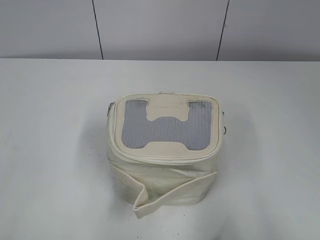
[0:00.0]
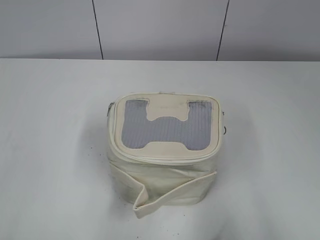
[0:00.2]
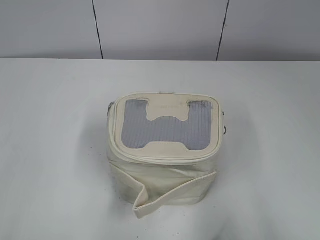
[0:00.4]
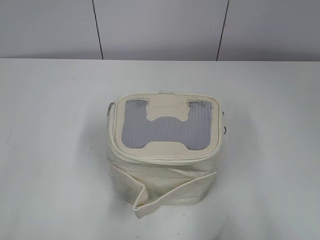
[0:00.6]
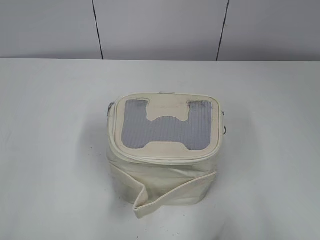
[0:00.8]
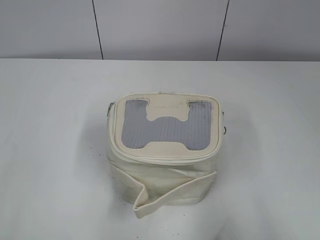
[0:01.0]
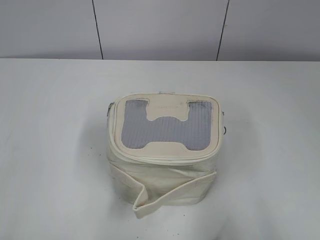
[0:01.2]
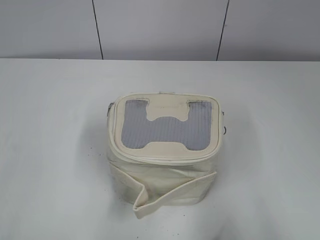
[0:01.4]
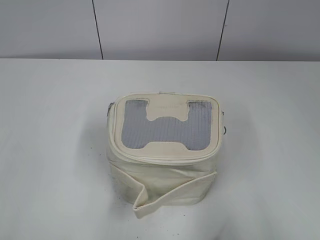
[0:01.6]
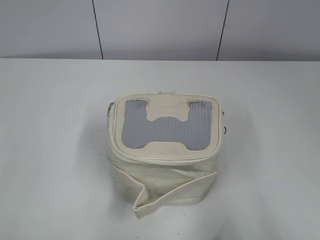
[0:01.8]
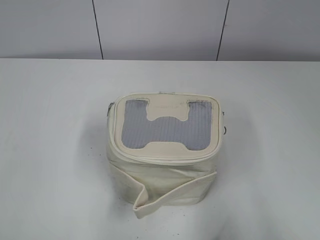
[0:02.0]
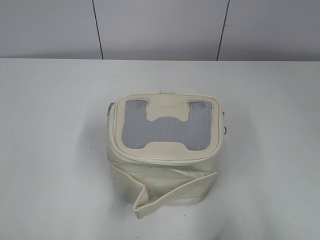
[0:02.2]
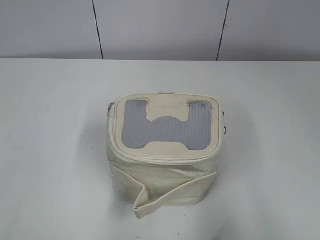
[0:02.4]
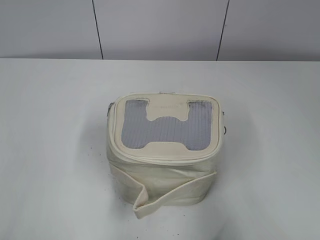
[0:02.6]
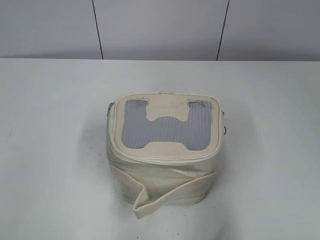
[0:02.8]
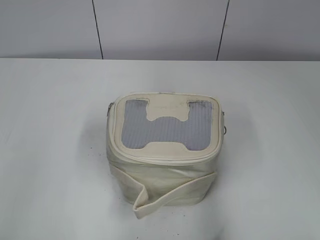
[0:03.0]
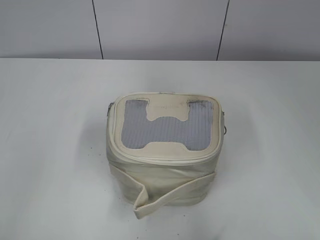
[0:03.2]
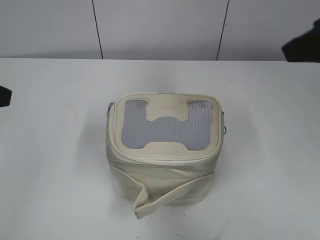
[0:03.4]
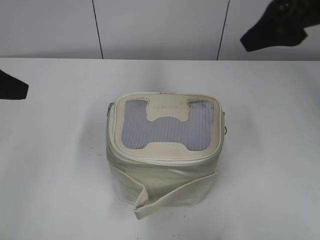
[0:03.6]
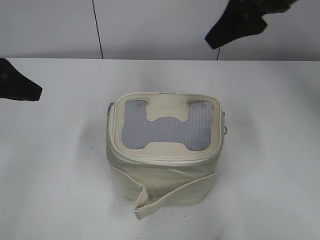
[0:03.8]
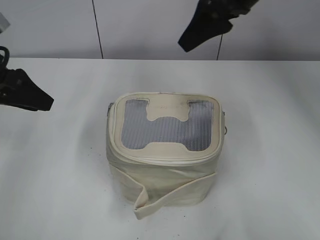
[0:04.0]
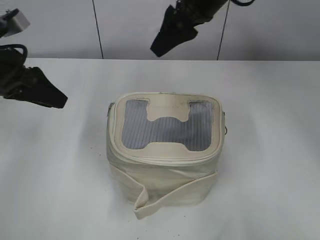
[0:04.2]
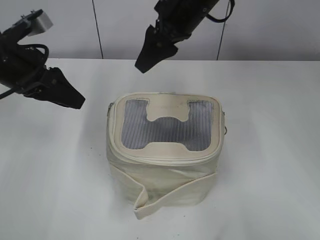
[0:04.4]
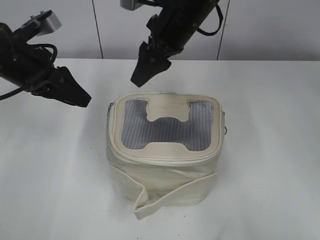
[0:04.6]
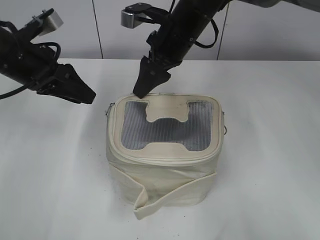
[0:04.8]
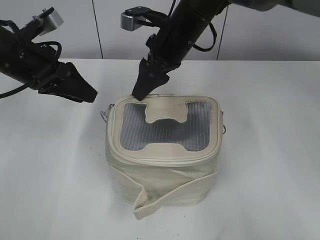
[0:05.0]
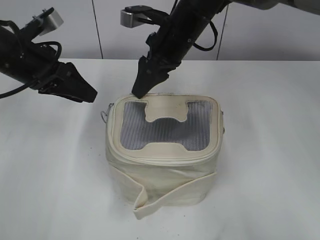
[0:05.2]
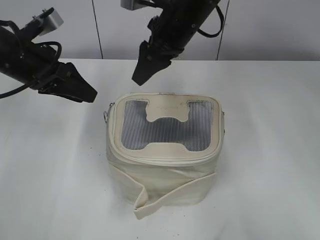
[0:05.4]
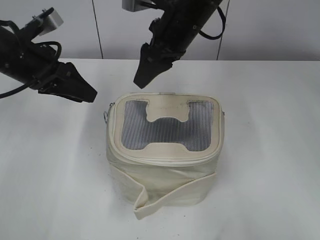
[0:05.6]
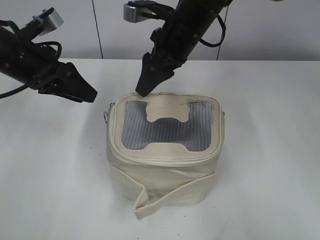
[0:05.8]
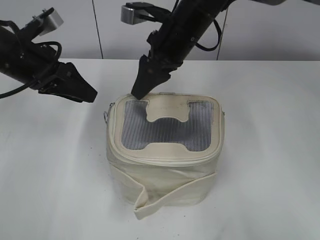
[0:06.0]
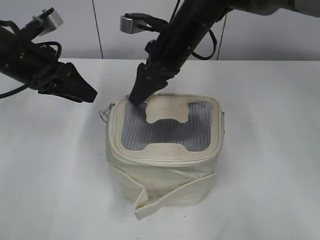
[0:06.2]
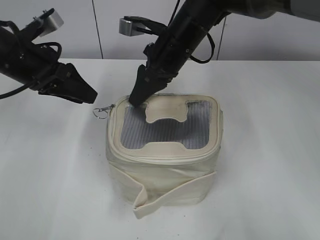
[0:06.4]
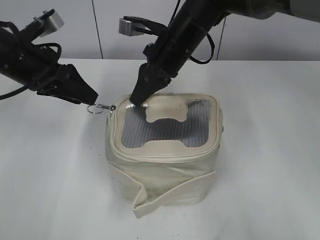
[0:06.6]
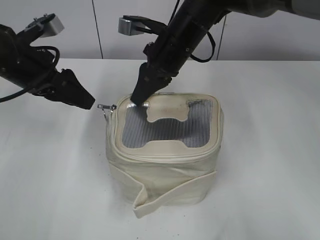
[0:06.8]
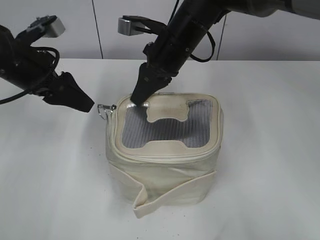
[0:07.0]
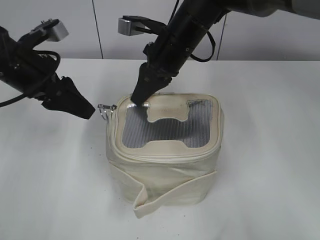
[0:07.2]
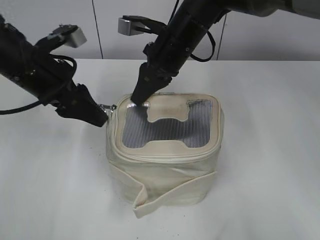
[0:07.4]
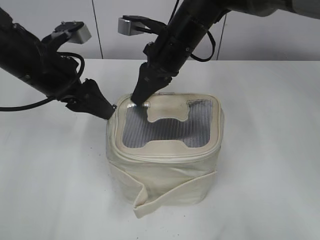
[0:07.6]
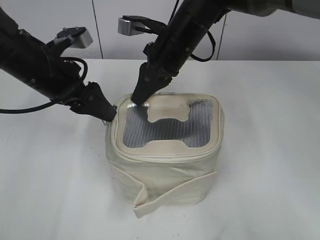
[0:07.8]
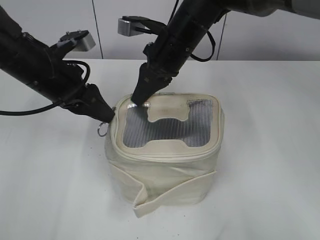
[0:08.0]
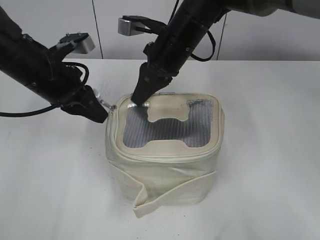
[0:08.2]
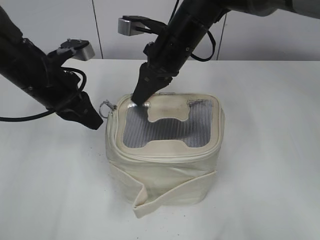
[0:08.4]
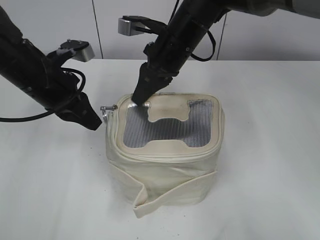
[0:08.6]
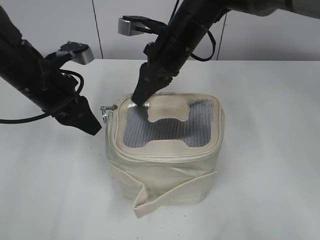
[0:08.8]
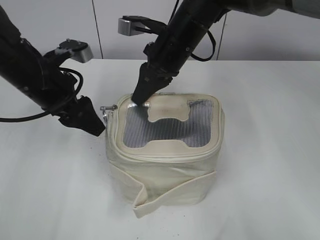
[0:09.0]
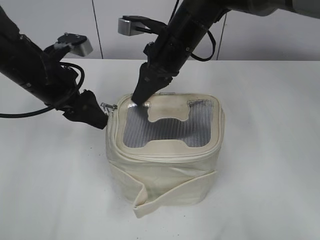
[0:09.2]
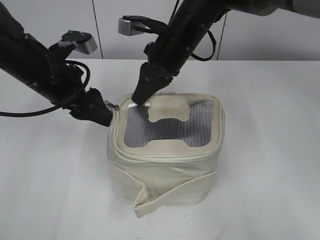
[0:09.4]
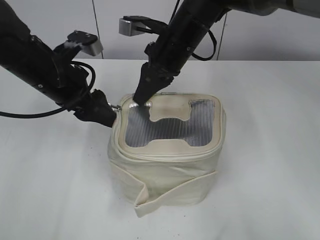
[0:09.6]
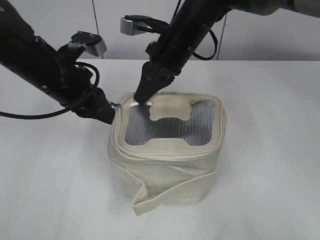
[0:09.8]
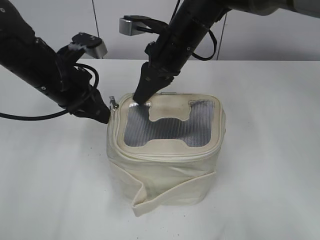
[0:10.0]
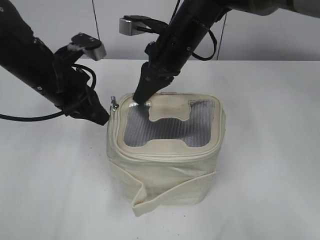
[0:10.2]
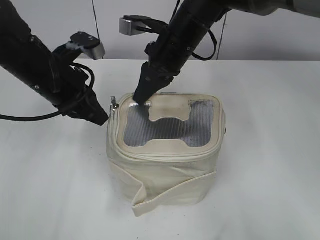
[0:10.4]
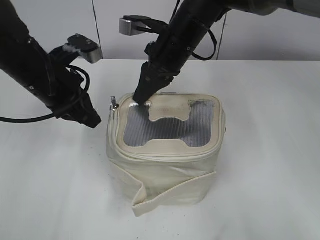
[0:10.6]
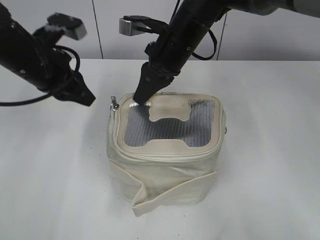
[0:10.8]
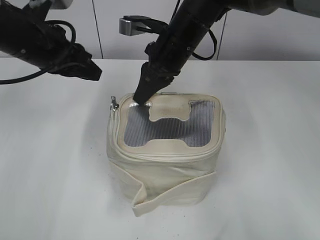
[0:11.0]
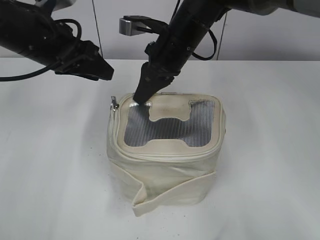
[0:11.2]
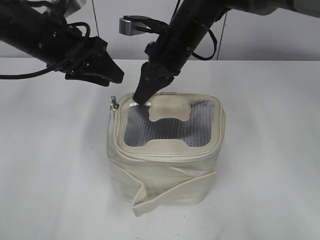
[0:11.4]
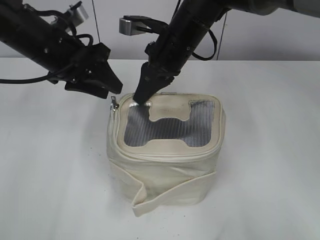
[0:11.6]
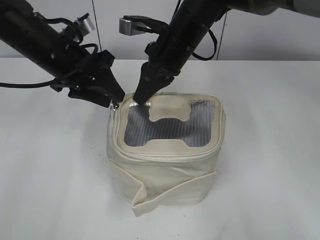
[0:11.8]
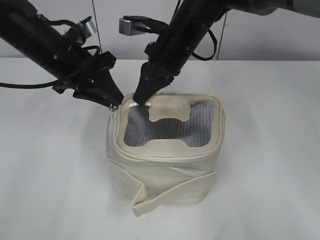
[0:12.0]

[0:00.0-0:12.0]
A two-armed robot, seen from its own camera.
0:01.6 to 0:03.0: The right gripper shifts roughly 10 cm forward and upward. Meanwhile the left gripper is displaced forward by some 10 cm.
0:03.0 to 0:04.4: The left gripper goes roughly 20 cm forward. Meanwhile the right gripper goes roughly 35 cm forward and to the left.
0:04.4 to 0:06.0: The grippers stay close to where they were, moving slightly.
0:06.0 to 0:07.6: The left gripper opens. The right gripper closes.
0:07.6 to 0:09.0: The left gripper closes, then opens again.
0:09.0 to 0:10.4: The left gripper closes its fingers.

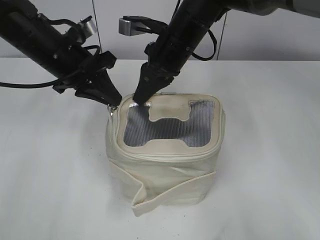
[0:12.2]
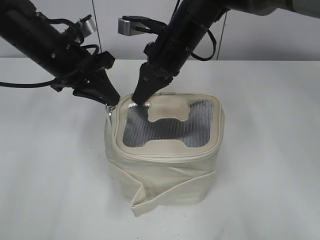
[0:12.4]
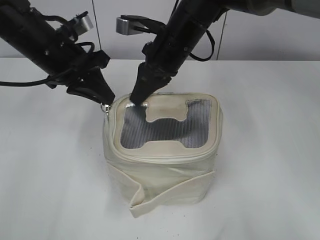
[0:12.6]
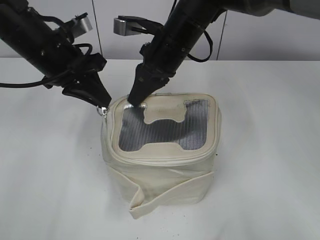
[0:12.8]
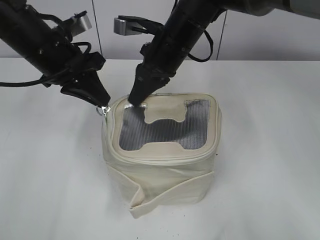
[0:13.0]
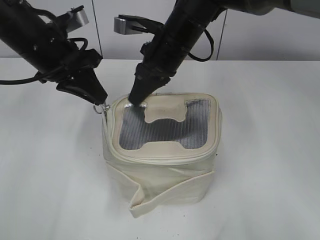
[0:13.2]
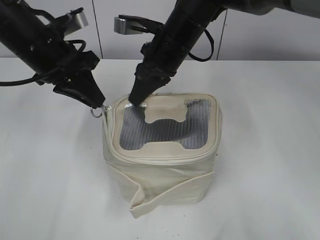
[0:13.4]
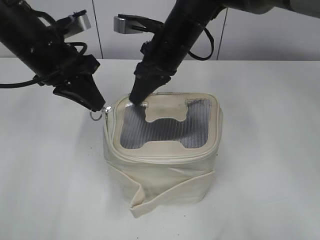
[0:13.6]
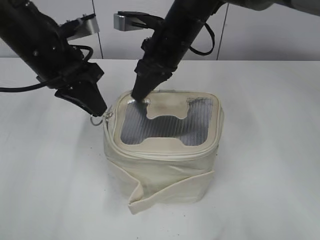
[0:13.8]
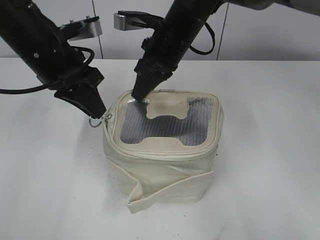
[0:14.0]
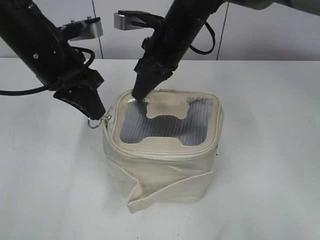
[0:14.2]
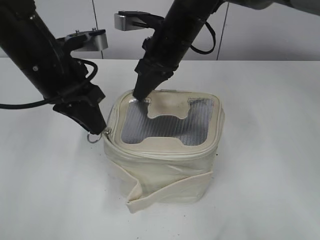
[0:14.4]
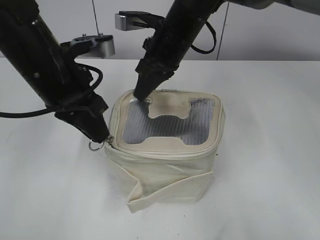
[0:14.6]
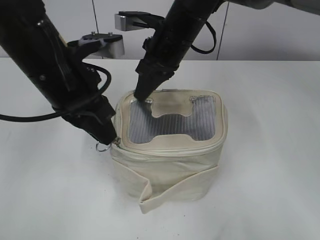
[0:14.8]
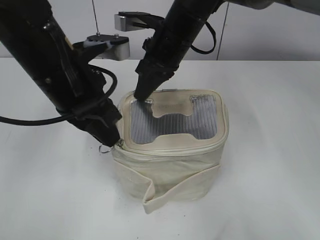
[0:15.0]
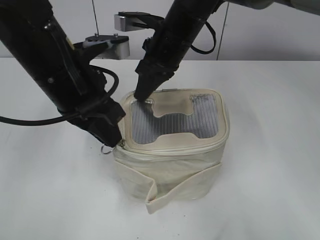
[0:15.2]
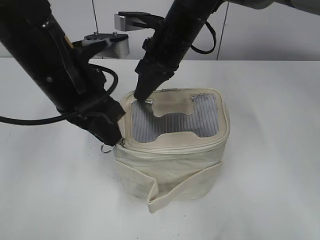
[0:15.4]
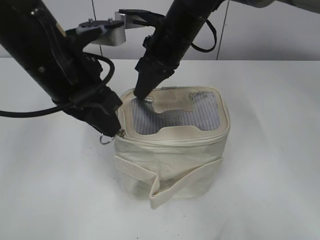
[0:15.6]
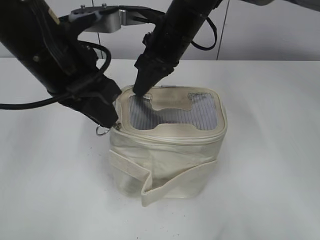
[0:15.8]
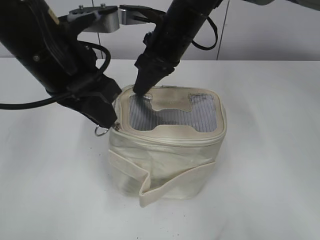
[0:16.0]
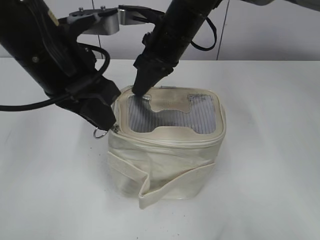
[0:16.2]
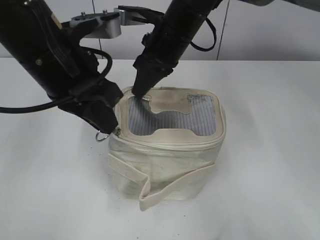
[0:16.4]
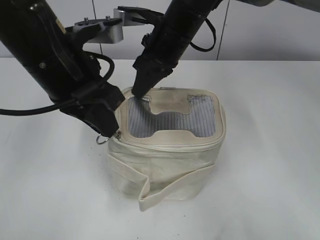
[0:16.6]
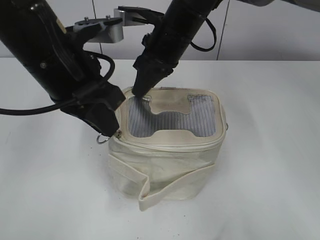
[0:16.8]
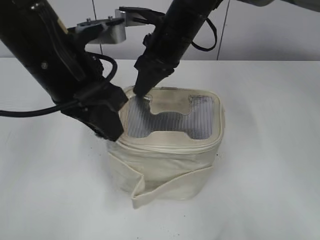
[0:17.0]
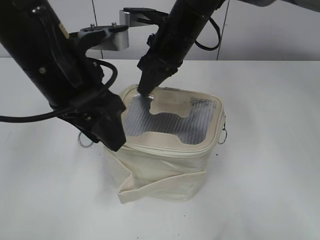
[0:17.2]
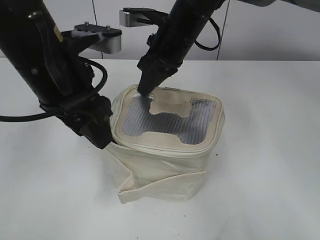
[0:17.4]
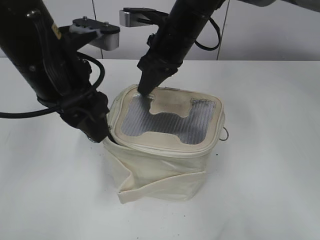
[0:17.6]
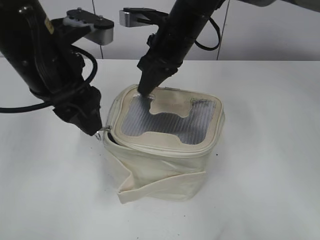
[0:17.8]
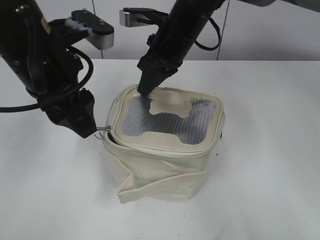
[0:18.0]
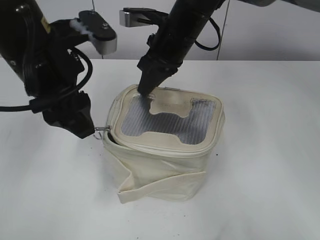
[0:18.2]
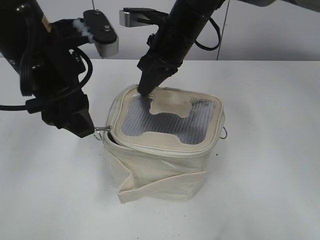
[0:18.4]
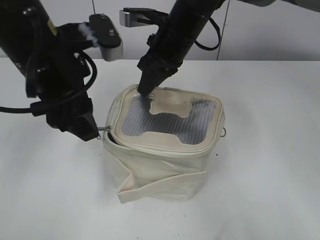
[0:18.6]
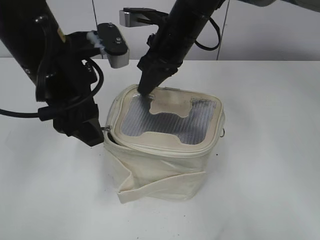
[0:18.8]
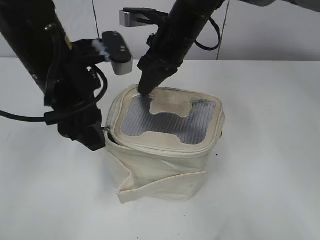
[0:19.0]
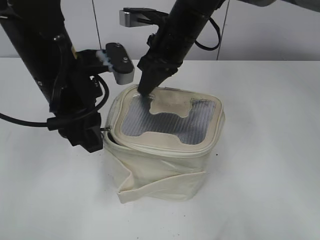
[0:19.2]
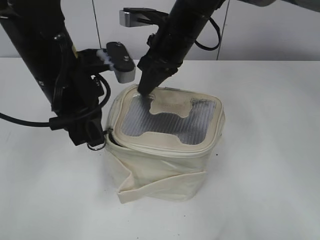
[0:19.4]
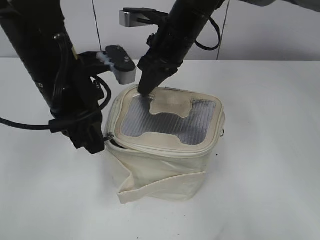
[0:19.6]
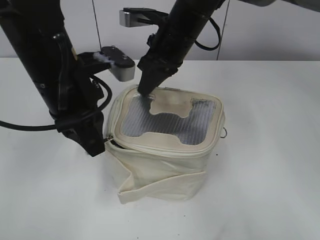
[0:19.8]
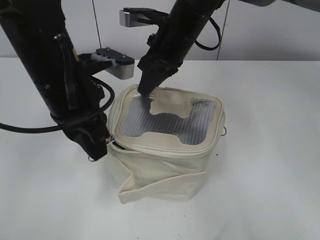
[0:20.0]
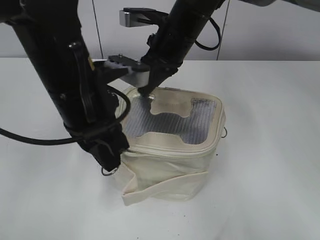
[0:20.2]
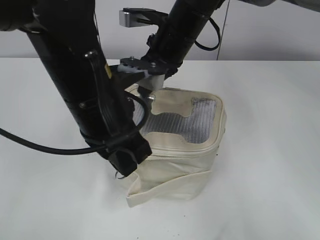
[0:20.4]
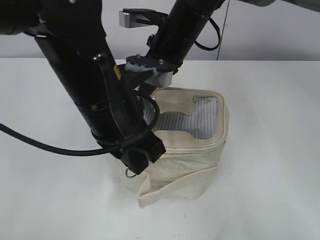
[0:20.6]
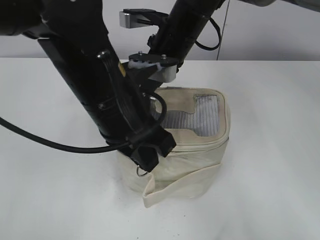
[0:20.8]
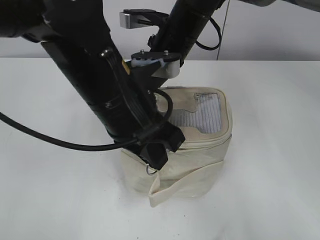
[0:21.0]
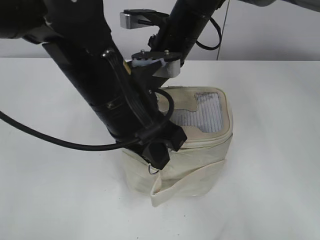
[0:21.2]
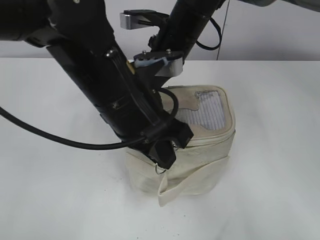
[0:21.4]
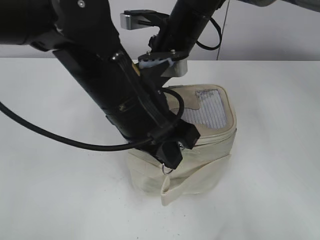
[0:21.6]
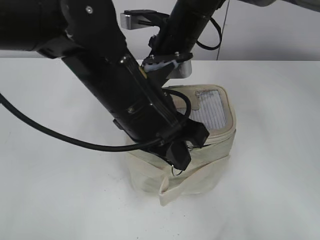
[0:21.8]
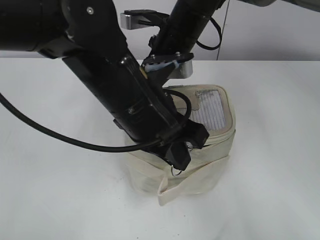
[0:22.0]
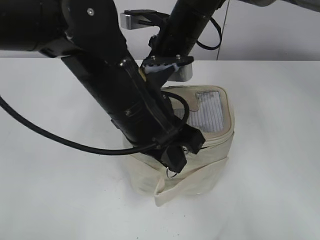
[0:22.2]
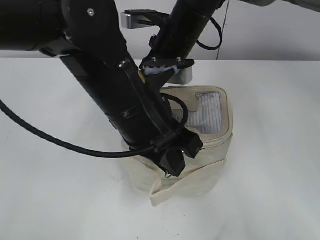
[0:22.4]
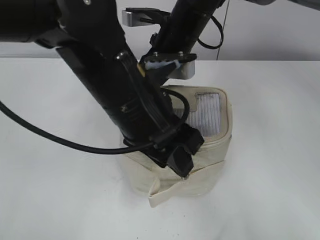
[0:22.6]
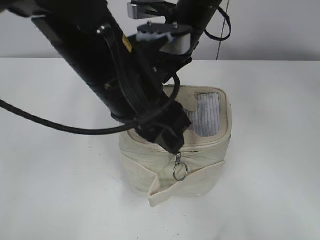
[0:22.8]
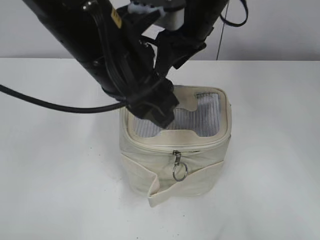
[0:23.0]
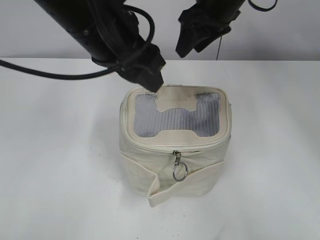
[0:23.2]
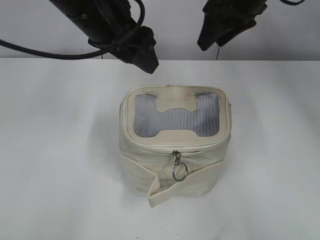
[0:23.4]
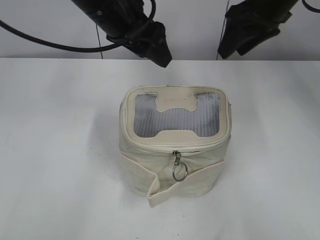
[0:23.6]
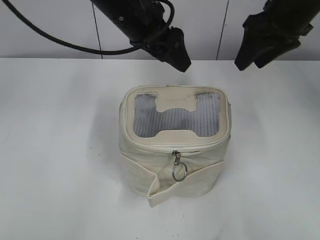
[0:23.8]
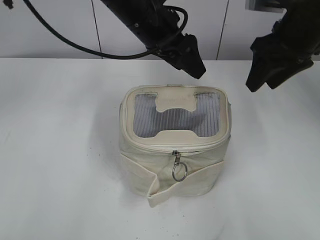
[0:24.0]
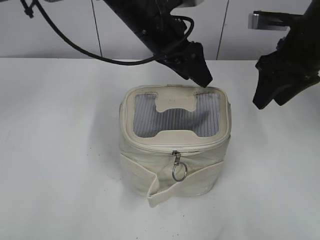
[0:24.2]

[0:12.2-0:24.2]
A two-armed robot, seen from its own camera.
Step, 0:12.2 to 0:22.4: Zip up the bag with your left hand.
0:12.2 to 0:13.8: There are only small adjustments of the grippers.
0:13.8 to 0:15.2: The left gripper heads backward, covering some 5 cm.
0:15.2 to 0:16.6: The grippers move only a little.
0:16.6 to 0:18.2: The left gripper opens up.
0:18.2 to 0:19.8: The left gripper closes its fingers.
0:19.8 to 0:21.2: The left gripper heads to the right, covering some 5 cm.
0:21.2 to 0:22.6: The left gripper opens its fingers.
0:22.6 to 0:24.2: The right gripper moves to the right, some 20 cm. The left gripper moves forward, roughly 15 cm, and opens.
